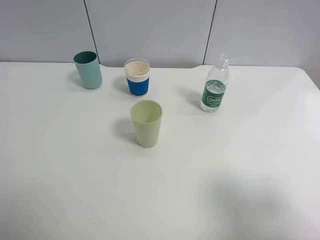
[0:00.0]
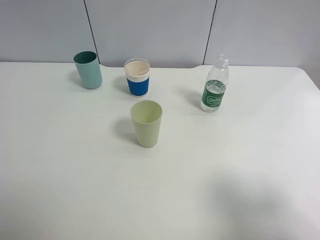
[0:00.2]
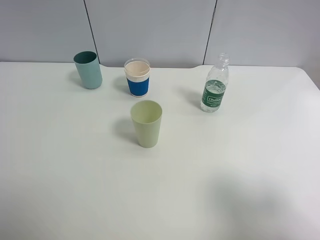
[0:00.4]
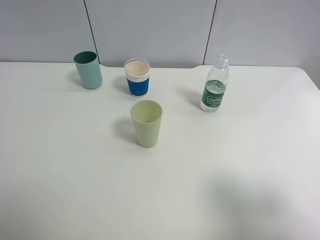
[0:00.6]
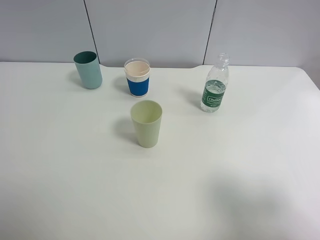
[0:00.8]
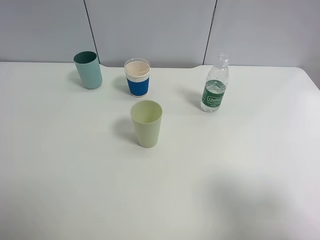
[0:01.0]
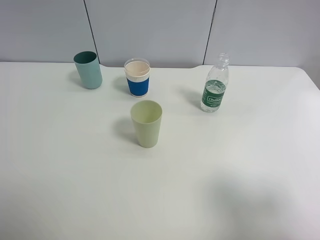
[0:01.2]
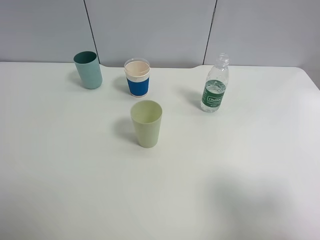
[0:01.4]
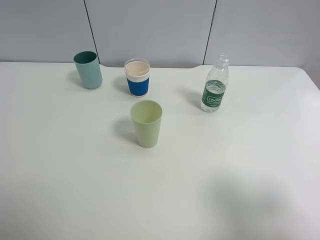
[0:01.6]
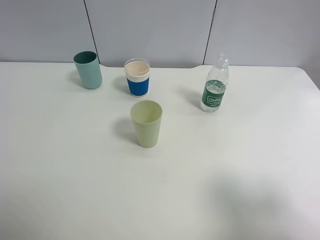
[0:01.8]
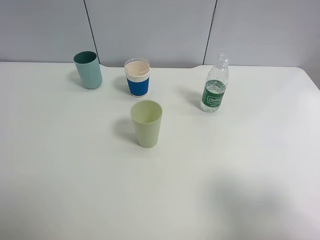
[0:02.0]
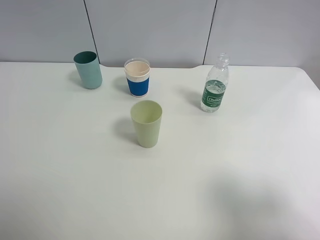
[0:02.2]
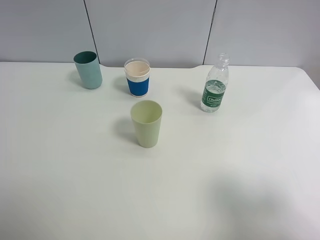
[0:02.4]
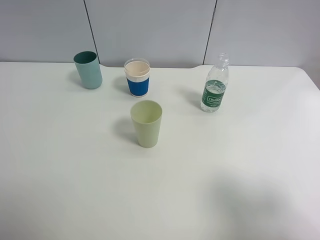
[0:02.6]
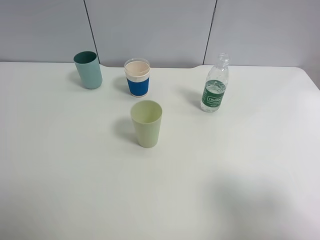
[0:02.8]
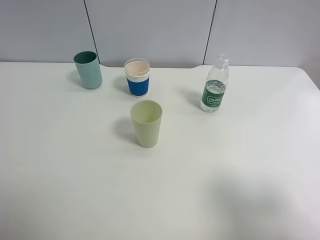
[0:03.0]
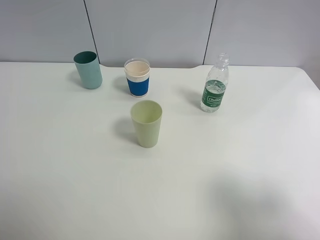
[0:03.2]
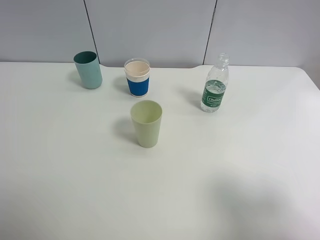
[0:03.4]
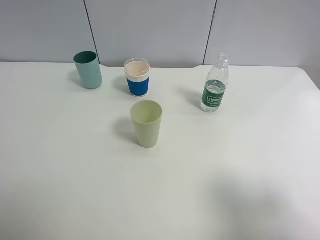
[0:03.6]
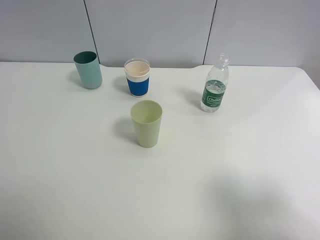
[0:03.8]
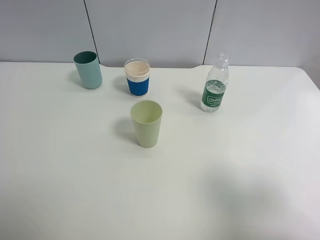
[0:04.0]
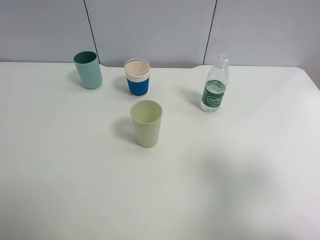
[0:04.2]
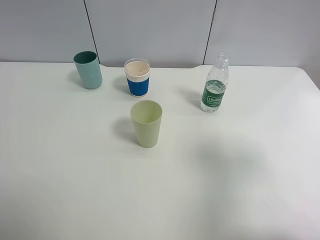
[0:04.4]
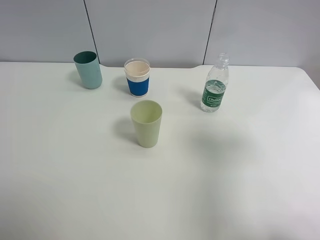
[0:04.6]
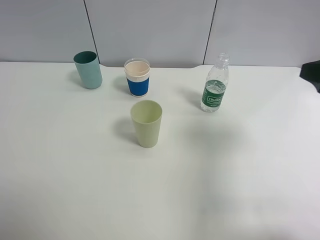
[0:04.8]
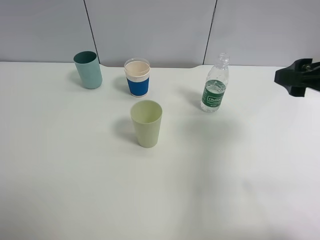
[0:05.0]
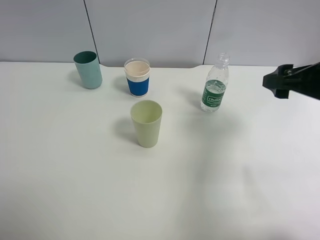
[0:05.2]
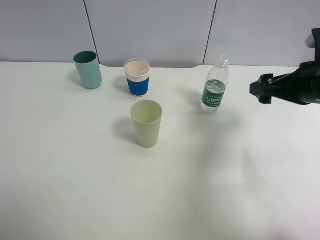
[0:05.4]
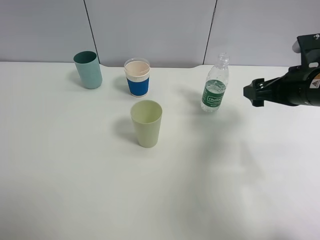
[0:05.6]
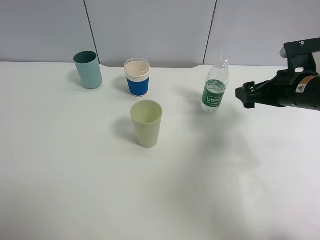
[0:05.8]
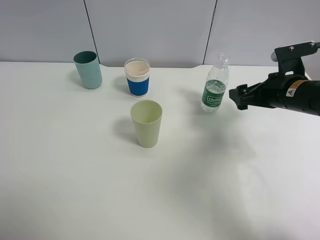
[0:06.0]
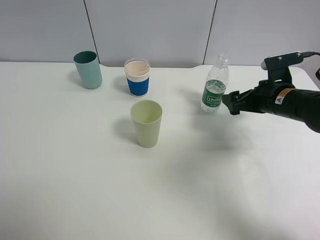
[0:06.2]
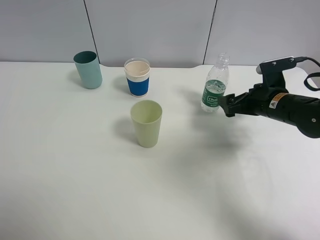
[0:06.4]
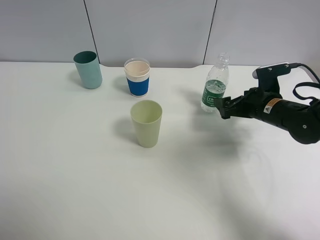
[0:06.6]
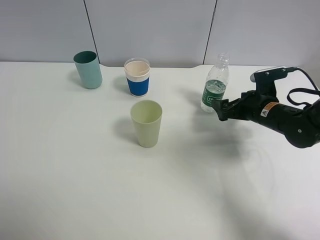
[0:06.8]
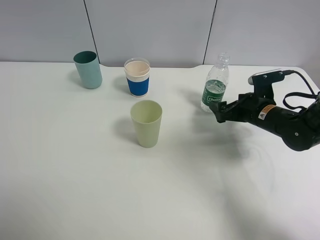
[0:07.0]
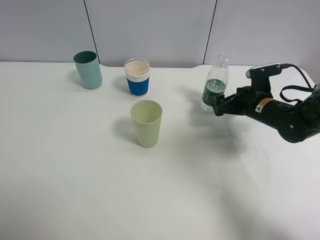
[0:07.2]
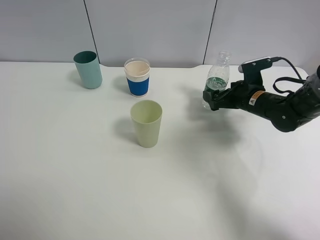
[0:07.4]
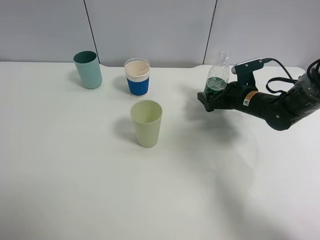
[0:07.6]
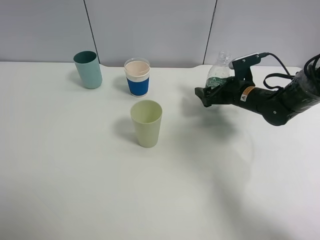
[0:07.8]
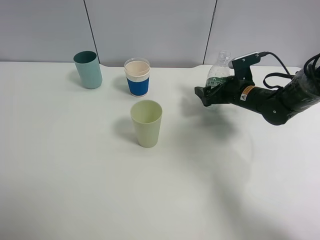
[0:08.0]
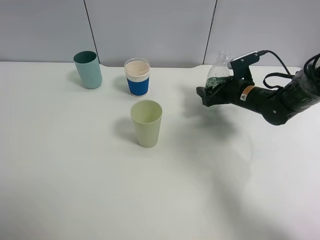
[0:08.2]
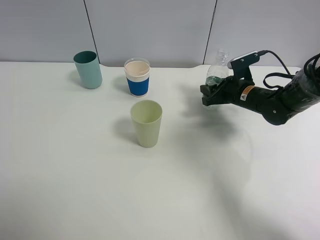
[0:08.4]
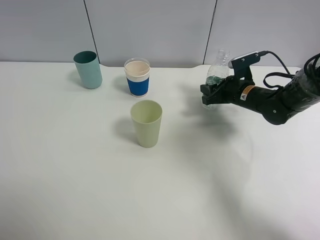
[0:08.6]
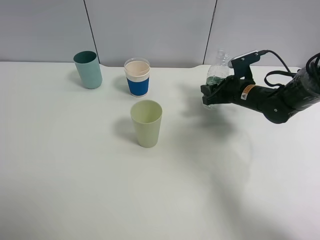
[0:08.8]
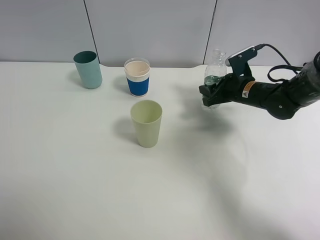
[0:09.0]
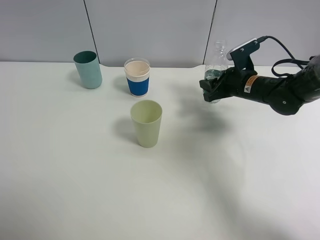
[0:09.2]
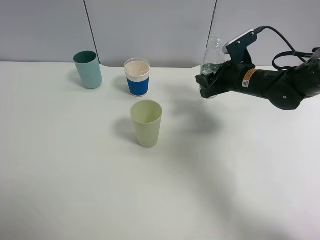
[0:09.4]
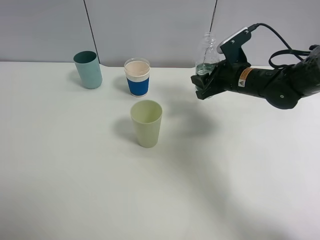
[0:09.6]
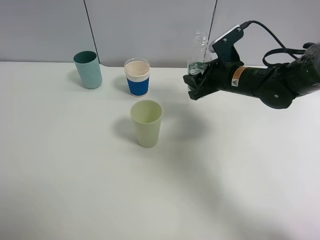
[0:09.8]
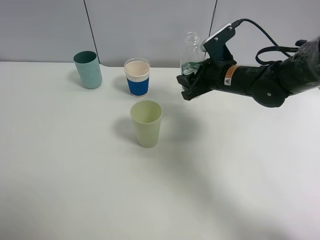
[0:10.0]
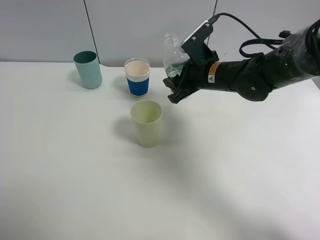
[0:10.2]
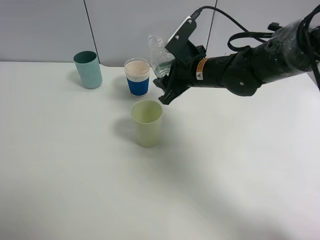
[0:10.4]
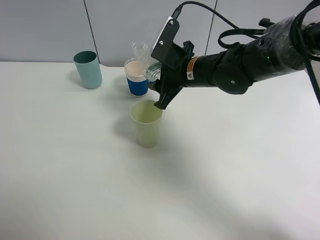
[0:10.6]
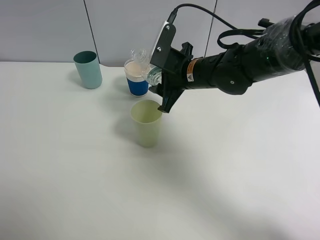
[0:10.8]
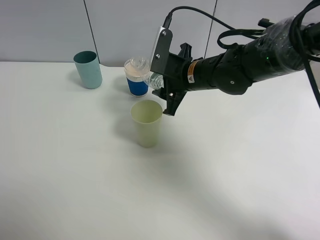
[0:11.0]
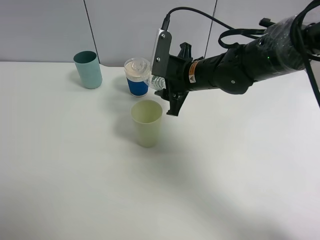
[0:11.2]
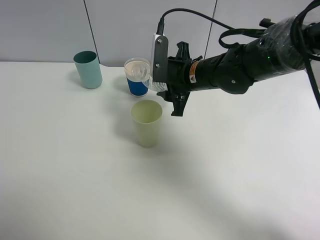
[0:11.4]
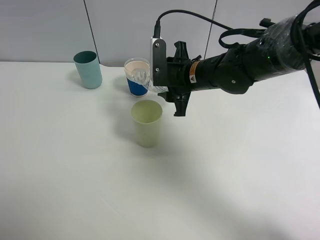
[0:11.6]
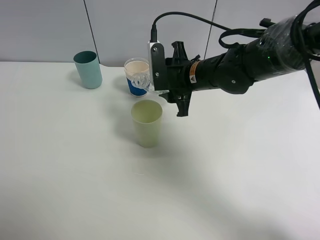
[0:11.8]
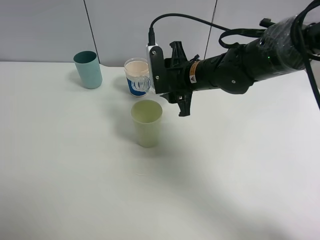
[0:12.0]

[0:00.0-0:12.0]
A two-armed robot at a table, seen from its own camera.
Task of the whole recording: use a clamp to hold the bottle of the drink, pour the beverage into a random cup, then clamp the cup containing the drink and pour the drink into another random cup.
Step, 0:00.0 to 0:09.2: Pick up the water bottle with right gripper.
0:00.0 to 0:03.0: Both grippers stay about where they are.
0:03.0 to 0:04.4: The right gripper heads forward, covering roughly 10 cm.
0:04.4 to 0:06.0: The right gripper heads forward and downward, covering about 25 cm.
0:06.0 to 0:07.6: The right gripper heads downward and forward, covering roughly 10 cm.
0:07.6 to 0:09.0: The right gripper closes up.
0:09.0 to 0:10.4: The right gripper goes some 15 cm to the left and upward.

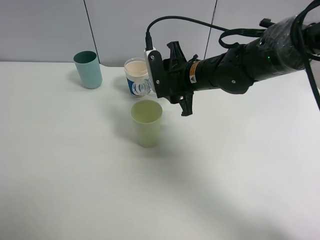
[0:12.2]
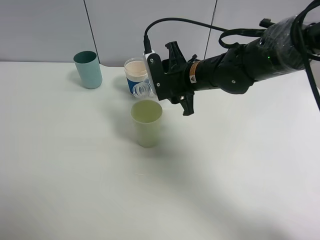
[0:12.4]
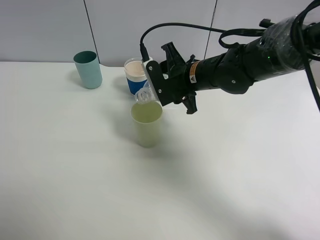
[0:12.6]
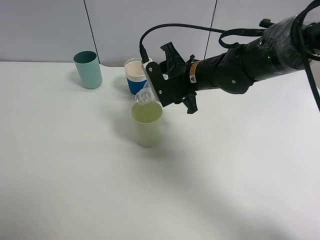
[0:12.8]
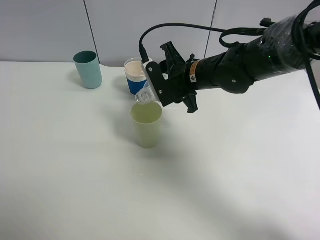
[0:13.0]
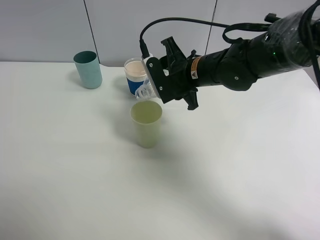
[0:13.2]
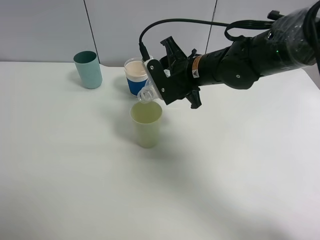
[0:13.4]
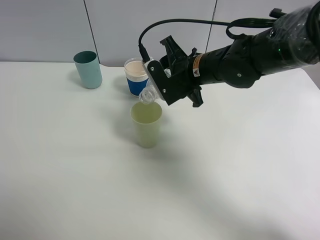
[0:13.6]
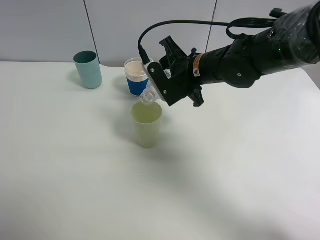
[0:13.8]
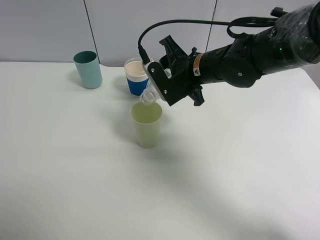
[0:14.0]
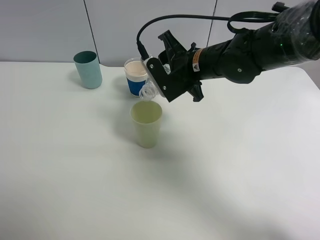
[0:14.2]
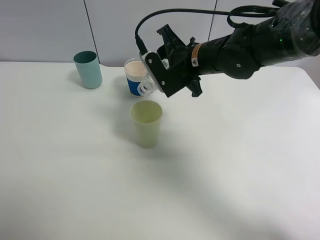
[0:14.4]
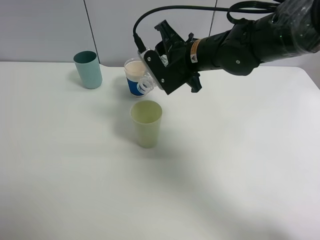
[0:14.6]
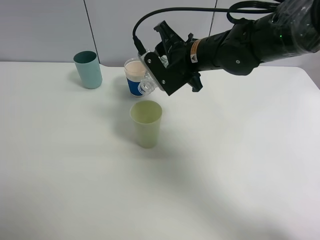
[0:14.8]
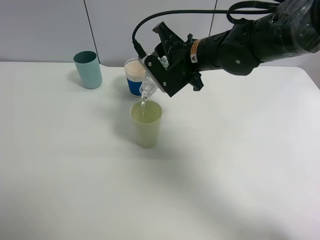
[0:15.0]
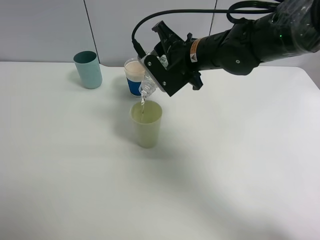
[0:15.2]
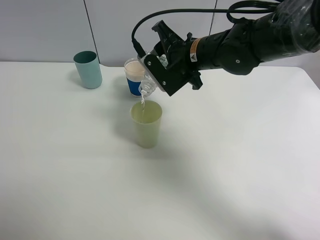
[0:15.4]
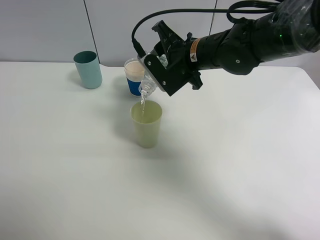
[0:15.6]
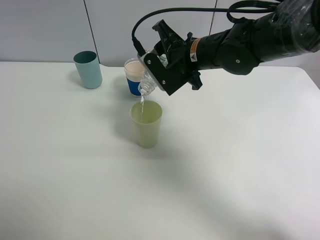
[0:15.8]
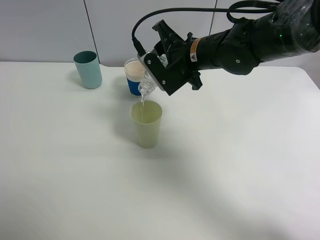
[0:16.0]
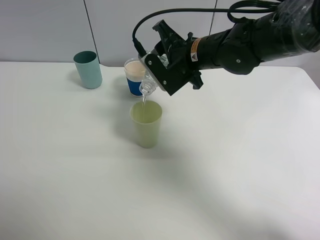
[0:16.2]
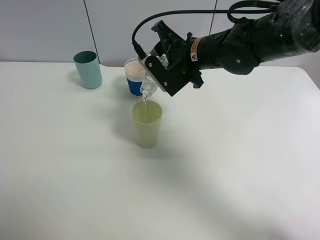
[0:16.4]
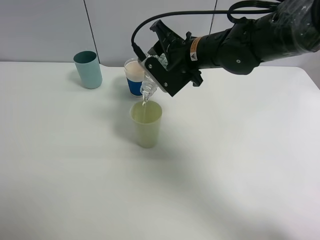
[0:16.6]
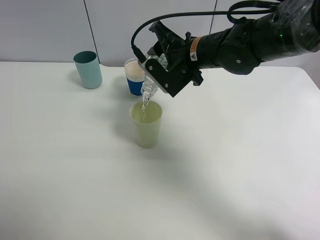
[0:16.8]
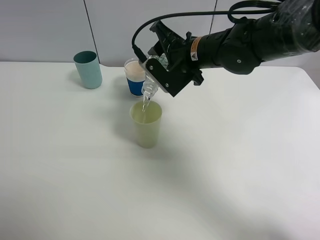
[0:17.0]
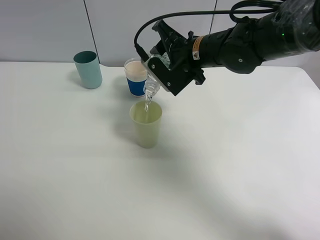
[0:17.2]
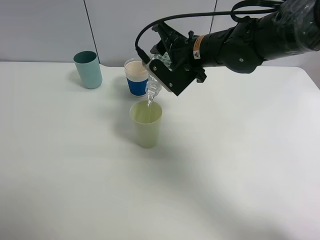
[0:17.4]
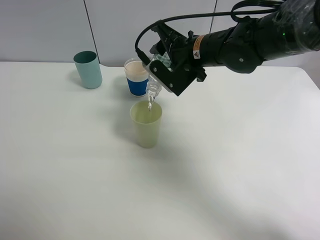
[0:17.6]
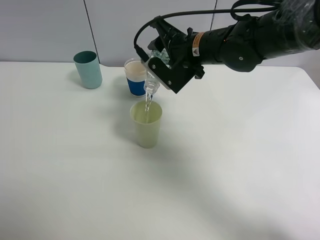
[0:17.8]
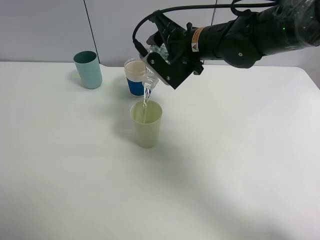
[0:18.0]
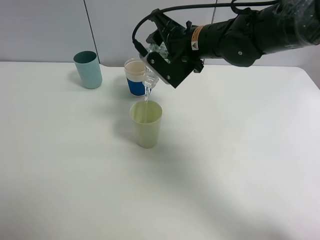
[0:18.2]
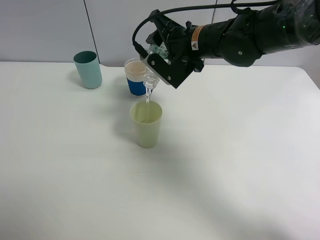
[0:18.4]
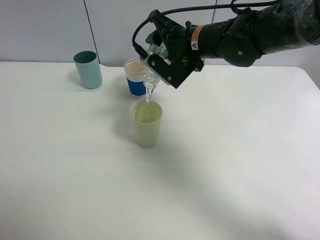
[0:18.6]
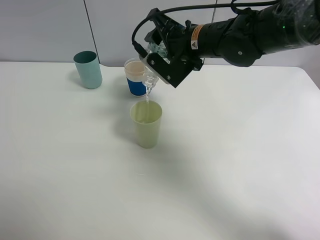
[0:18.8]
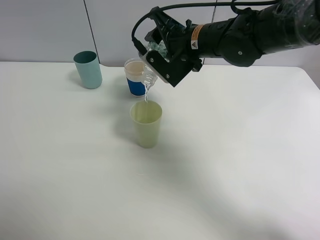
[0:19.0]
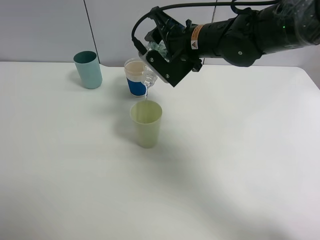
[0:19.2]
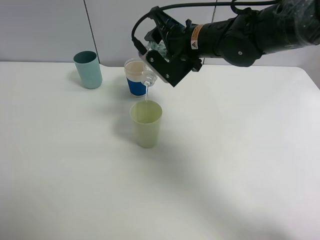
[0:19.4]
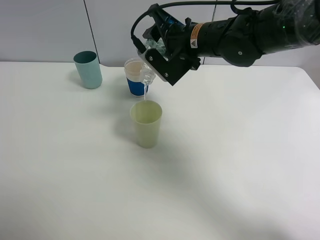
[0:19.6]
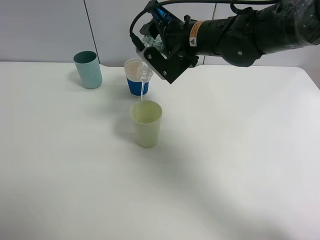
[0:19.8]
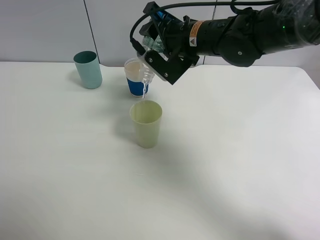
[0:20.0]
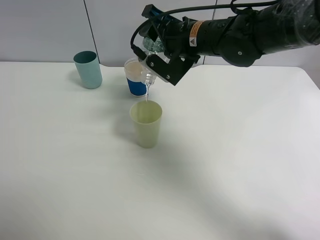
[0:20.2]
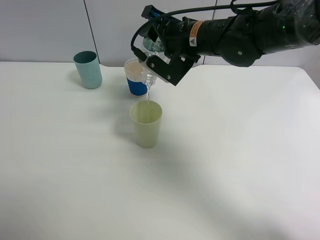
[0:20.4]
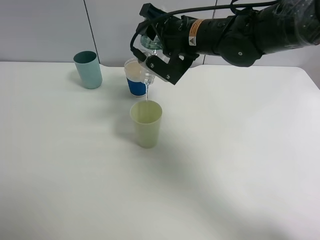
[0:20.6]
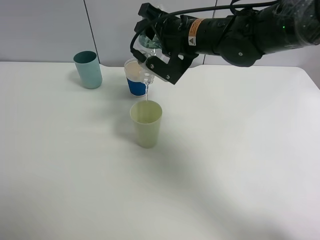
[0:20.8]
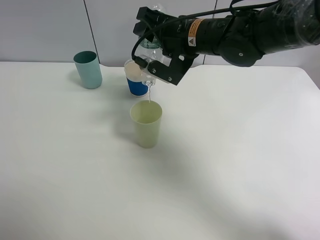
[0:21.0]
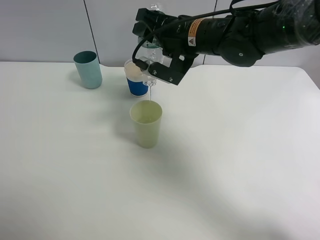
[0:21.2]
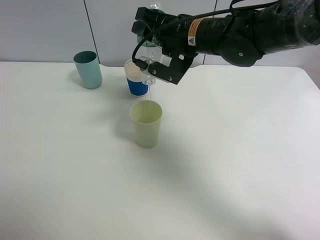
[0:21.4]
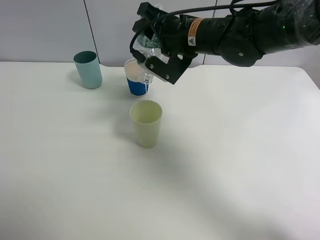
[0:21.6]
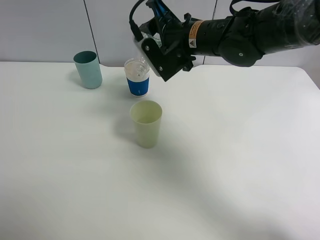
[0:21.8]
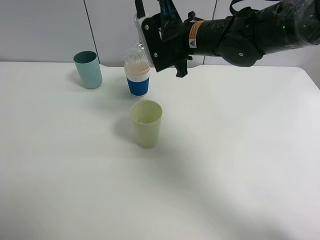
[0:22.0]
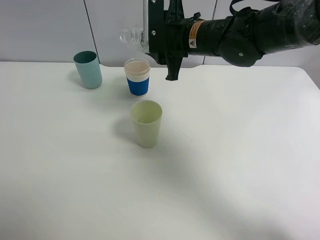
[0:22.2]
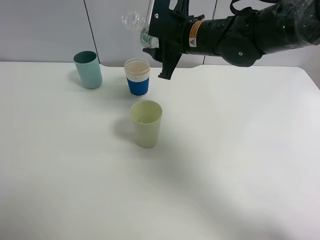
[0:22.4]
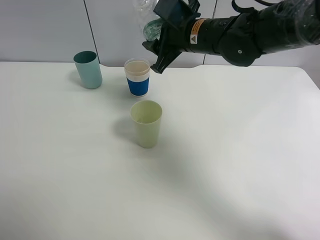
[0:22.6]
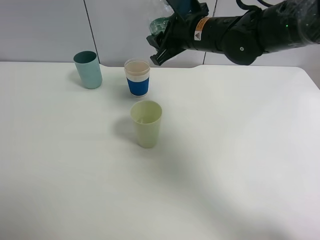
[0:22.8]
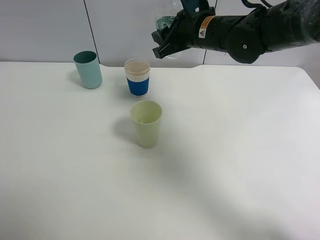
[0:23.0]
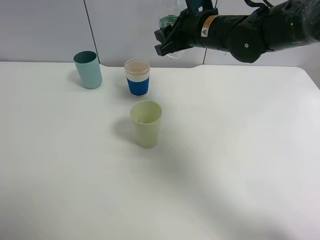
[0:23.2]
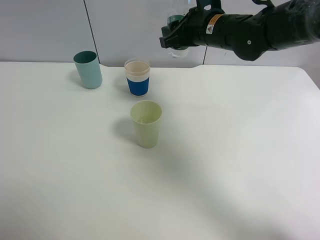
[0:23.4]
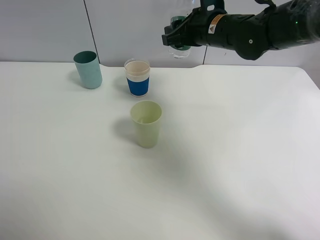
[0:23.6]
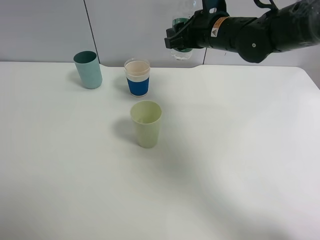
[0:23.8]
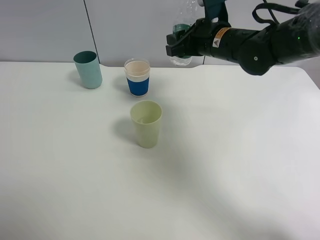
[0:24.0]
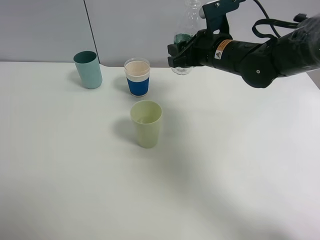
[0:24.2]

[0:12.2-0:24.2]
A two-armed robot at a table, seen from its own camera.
Task of the whole recording: use a clamp to hold the bottle of the drink, pour the beverage into a random cup, then clamp the cup containing the drink and pour the drink into another random cup.
Step, 0:12.2 to 0:21.8: Pour water into the green plastic cup with right gripper.
0:13.8 to 0:16.6: The grippers stay close to where they were, moving slightly.
0:16.6 to 0:19.8: There are only small adjustments of the grippers.
0:19.8 to 0:21.2: There are only small adjustments of the grippers.
0:22.6 to 0:24.2: The right gripper is displaced to the right by some 5 cm.
